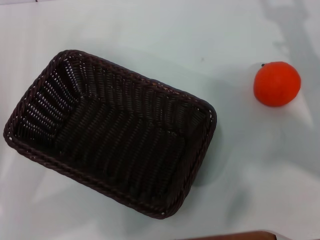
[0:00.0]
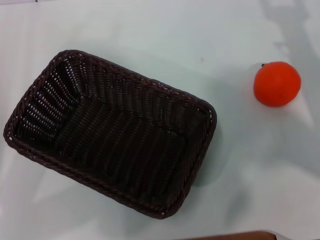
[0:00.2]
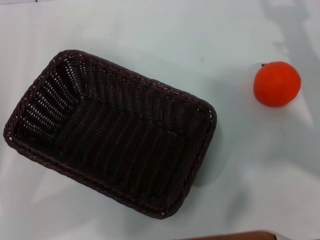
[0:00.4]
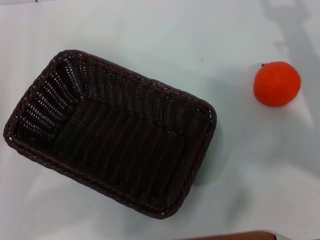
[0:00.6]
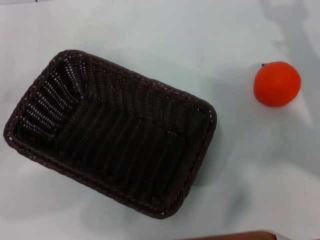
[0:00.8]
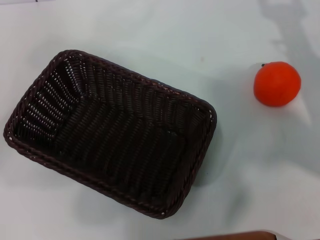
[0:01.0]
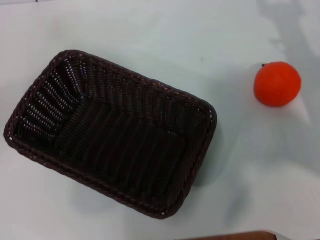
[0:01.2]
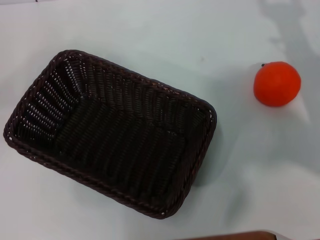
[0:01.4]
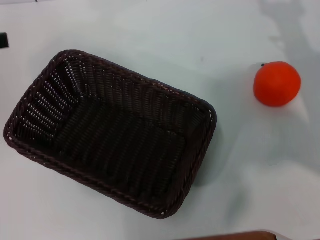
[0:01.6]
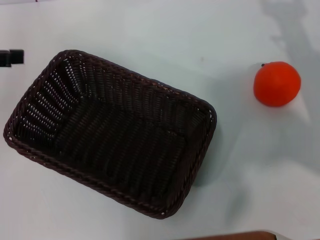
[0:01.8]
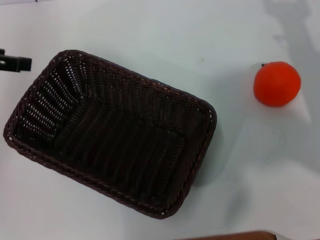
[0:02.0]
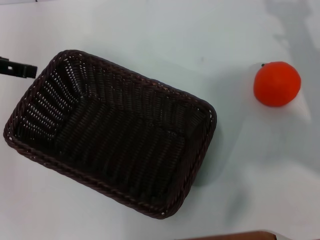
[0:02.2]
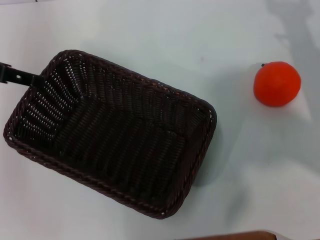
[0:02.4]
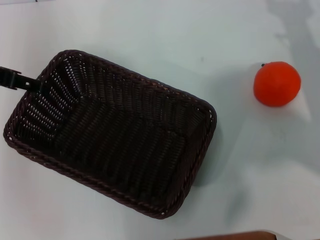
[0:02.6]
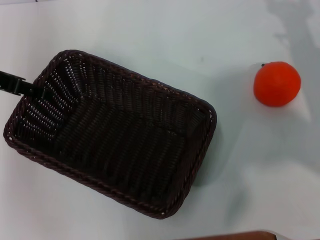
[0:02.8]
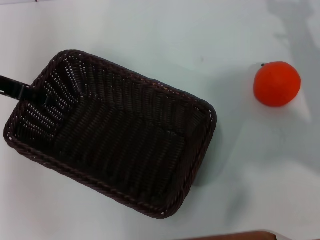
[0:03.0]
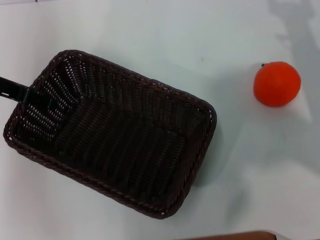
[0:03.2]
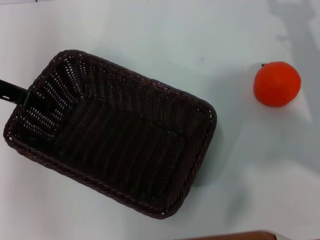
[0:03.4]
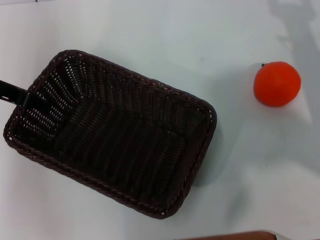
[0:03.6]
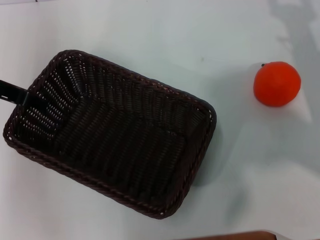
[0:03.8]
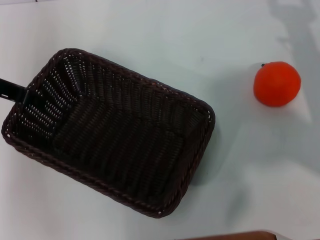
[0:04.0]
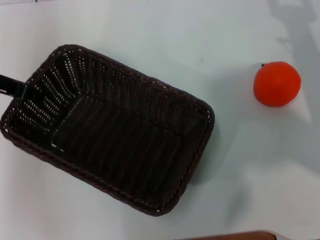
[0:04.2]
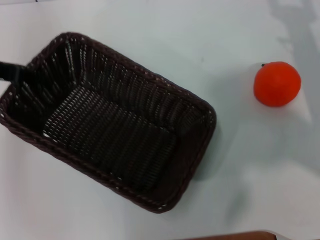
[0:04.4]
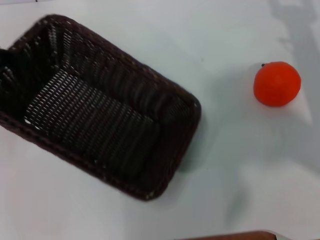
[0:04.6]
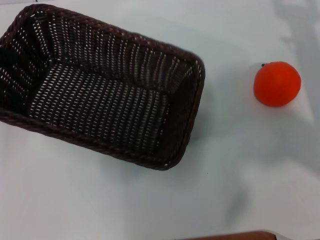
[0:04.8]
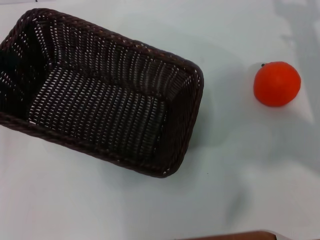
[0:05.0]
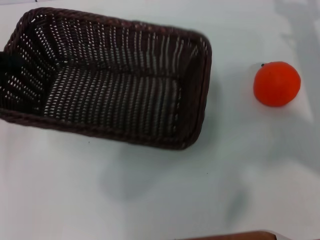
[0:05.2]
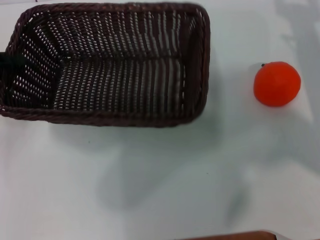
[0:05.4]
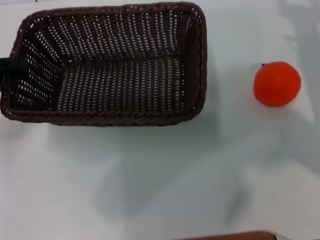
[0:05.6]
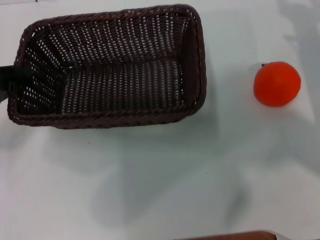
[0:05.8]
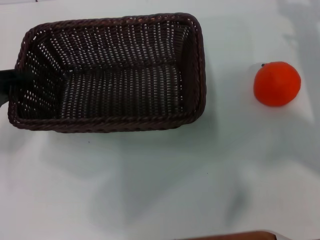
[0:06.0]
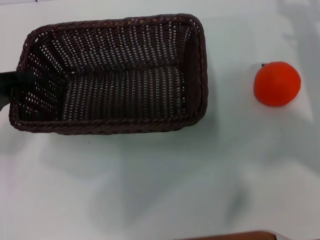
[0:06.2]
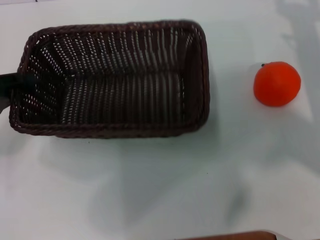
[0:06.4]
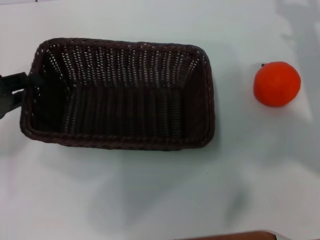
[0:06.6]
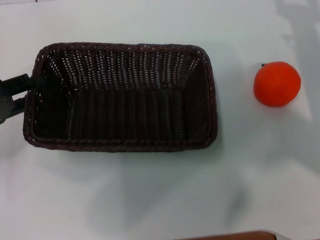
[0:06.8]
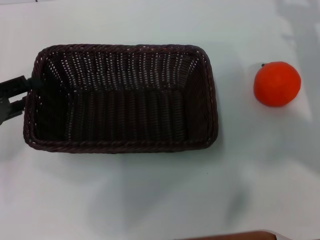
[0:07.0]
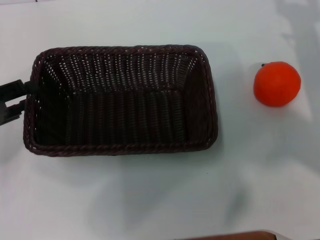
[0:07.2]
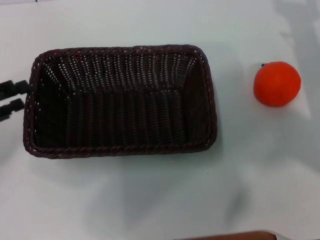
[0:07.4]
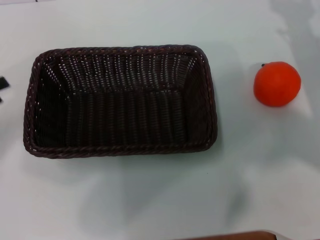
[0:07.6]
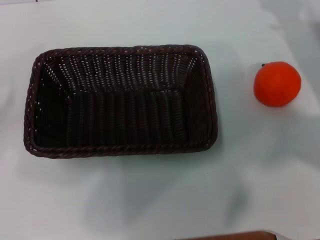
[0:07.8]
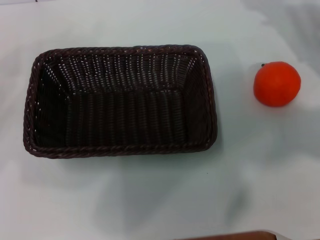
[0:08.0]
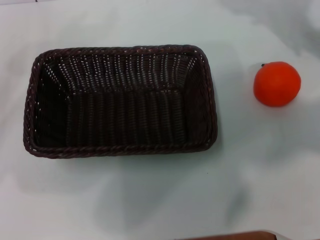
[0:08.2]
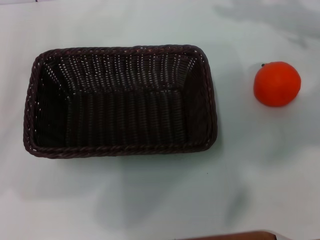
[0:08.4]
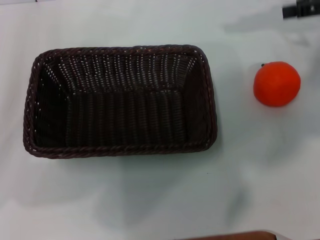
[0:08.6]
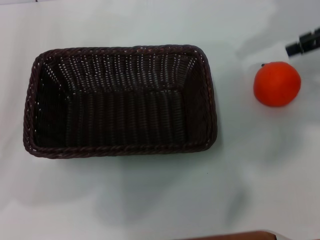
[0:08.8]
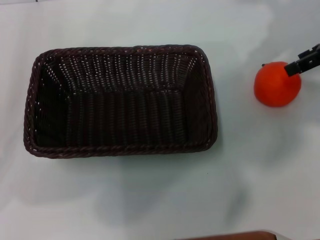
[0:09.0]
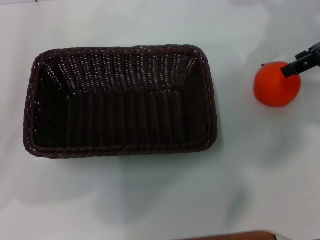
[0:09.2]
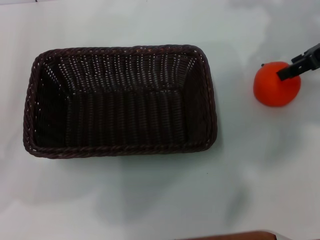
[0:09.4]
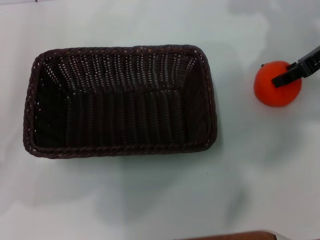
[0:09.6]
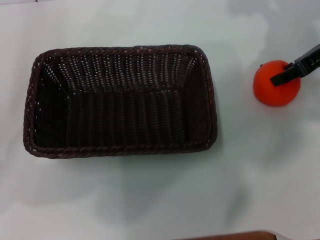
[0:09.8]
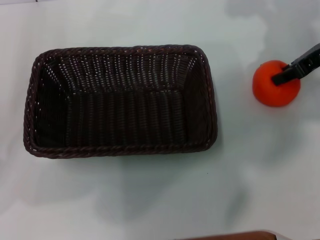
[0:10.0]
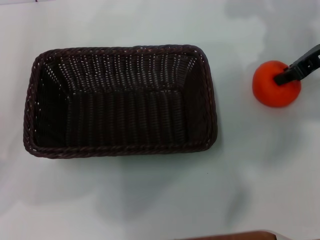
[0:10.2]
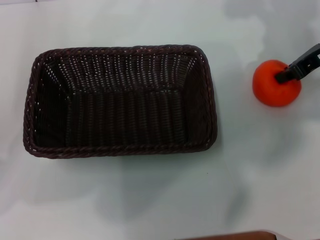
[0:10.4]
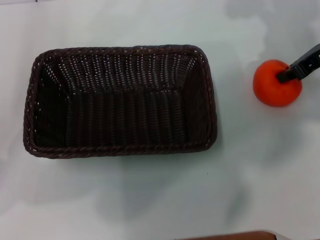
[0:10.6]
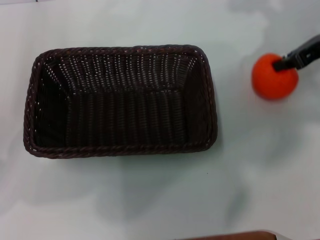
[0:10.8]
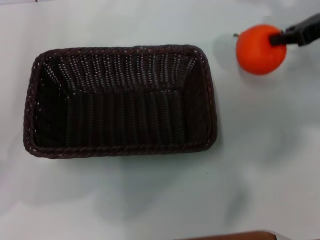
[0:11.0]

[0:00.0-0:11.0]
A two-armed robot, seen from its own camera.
Task of the whole recording: the left gripper pick up the black basket and place it horizontally in the middle of the table, the right gripper pick up the orange and place it into the black basket.
Step, 0:00.0 to 0:04.6: Pick up the dark basket with the left gripper.
Step, 0:05.0 to 0:07.4: Place the dark basket in the center of view with the left gripper.
Step, 0:07.6 to 0:11.0: Pick up the orange with the right gripper.
0:00.0 to 0:01.6: The left gripper heads upward and forward, covering roughly 15 cm.
0:01.6 to 0:03.2: The left gripper goes roughly 10 cm to the right.
0:03.2 to 0:04.8: The left gripper travels to the left by about 5 cm, and closes.
0:04.8 to 0:06.2: The left gripper goes some 10 cm downward.
0:06.2 to 0:07.8: The left gripper goes about 5 cm to the left, and opens its fingers.
0:07.8 to 0:09.4: The right gripper is displaced upward by roughly 10 cm.
0:09.4 to 0:11.0: The right gripper closes.

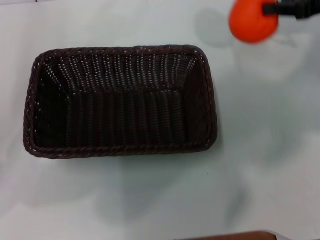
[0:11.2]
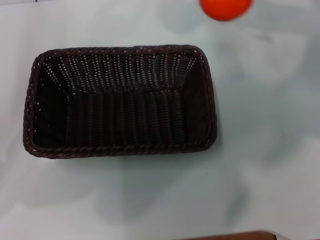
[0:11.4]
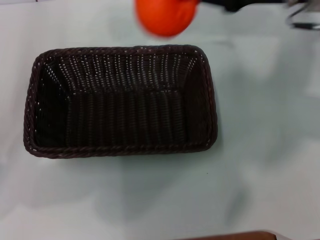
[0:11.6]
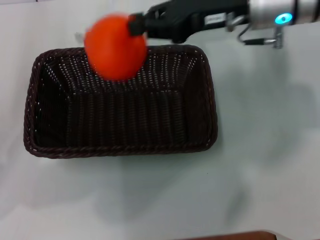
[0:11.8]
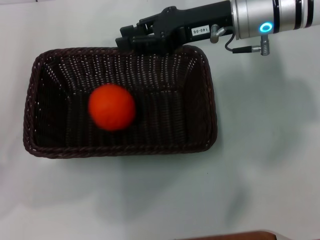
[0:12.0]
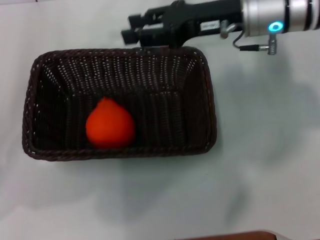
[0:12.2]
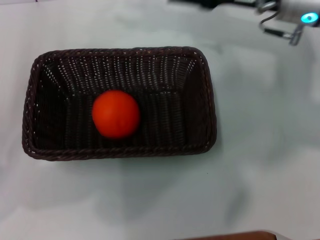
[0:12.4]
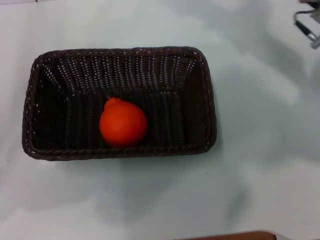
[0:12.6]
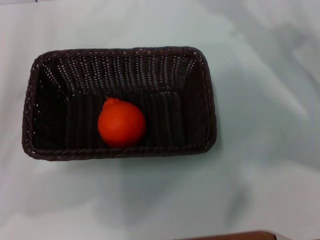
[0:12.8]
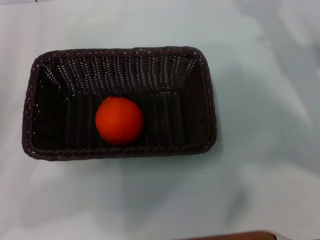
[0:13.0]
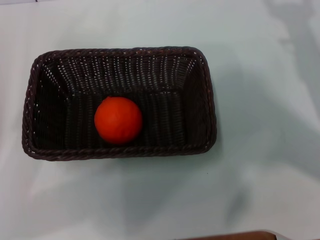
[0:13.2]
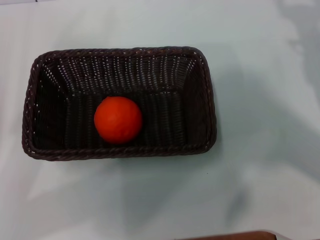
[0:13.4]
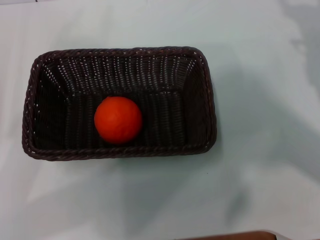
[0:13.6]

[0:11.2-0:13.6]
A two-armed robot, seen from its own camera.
Task of the whole recording: the left gripper pick up the black basket and place it horizontally in the middle of the table, the right gripper pick up the orange and place it into the black basket.
Step, 0:11.2 to 0:12.2: Place the orange into the dark basket with the right gripper.
0:11.2 to 0:12.4: The right gripper heads to the left, covering some 10 cm, and opens up.
0:12.4 to 0:13.6: The right gripper is displaced to the right, backward and downward by roughly 20 cm, and opens its fingers.
